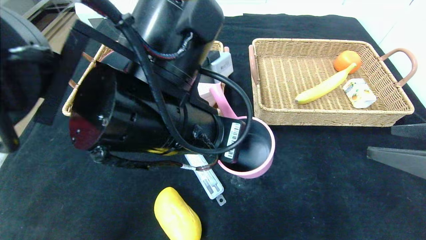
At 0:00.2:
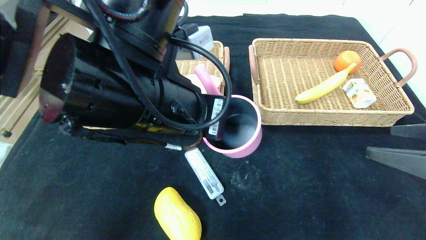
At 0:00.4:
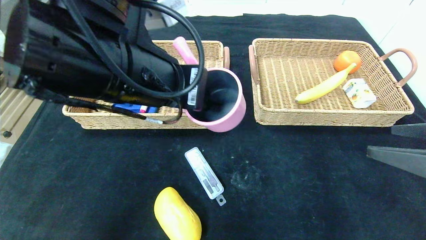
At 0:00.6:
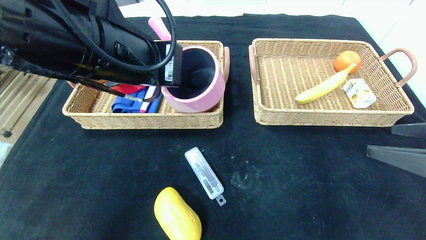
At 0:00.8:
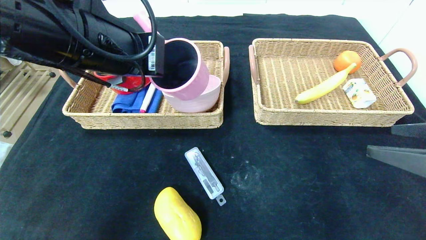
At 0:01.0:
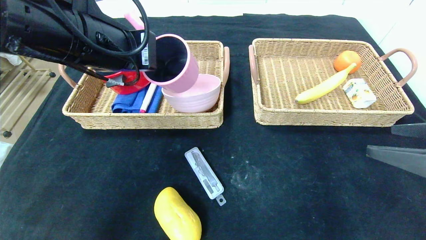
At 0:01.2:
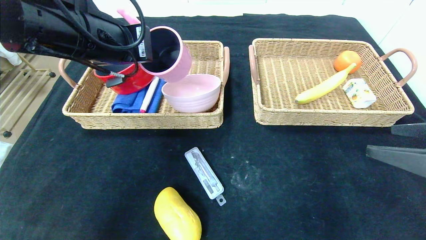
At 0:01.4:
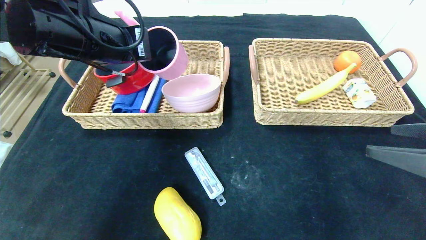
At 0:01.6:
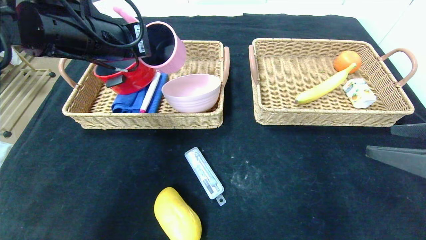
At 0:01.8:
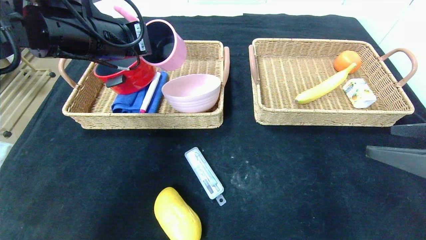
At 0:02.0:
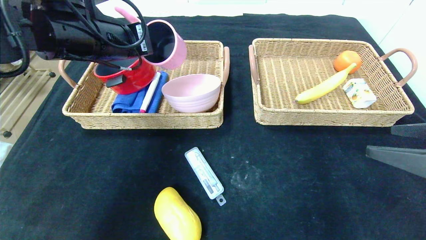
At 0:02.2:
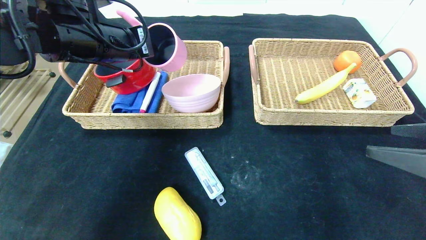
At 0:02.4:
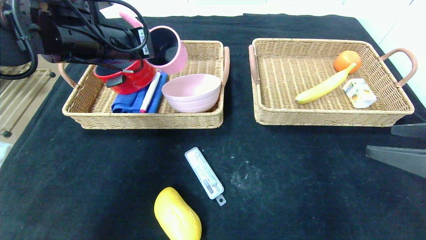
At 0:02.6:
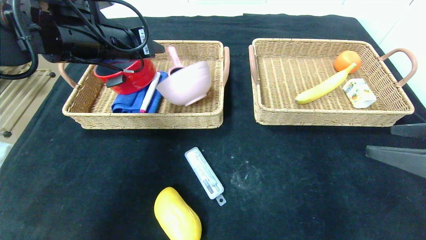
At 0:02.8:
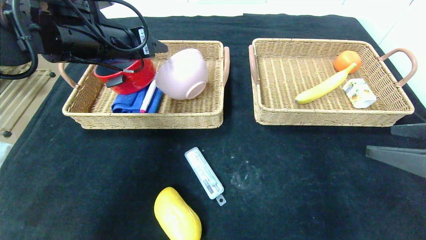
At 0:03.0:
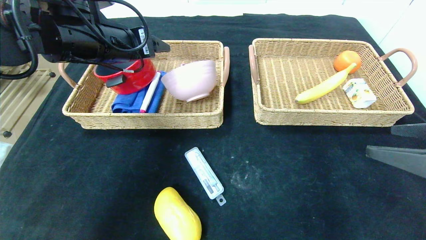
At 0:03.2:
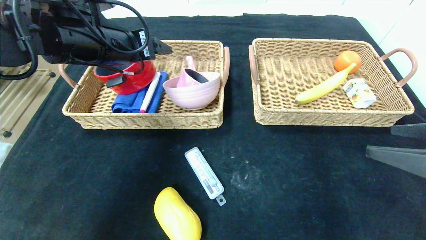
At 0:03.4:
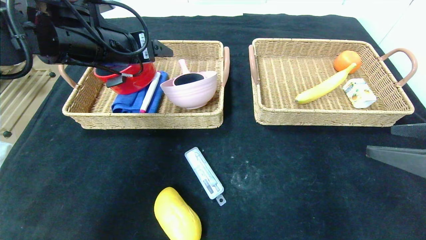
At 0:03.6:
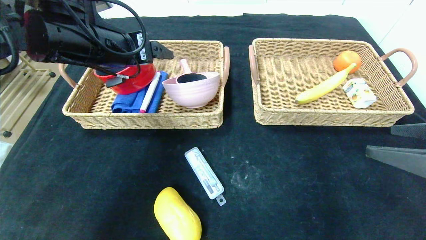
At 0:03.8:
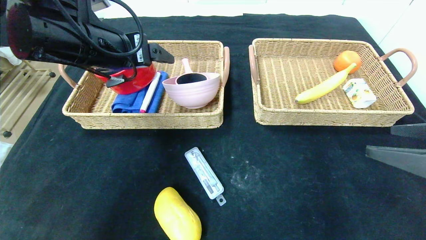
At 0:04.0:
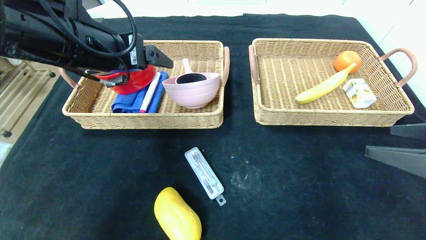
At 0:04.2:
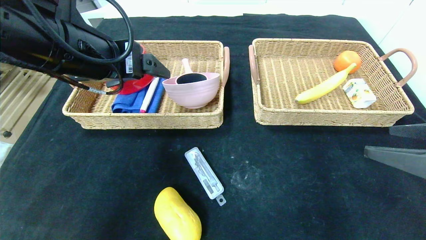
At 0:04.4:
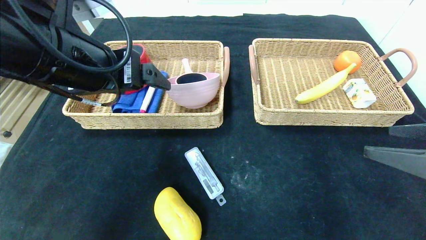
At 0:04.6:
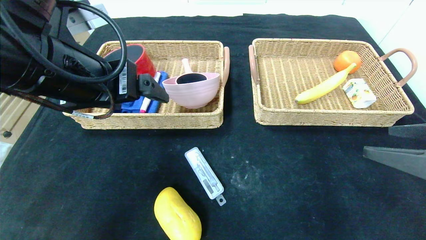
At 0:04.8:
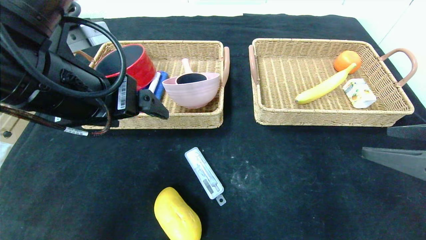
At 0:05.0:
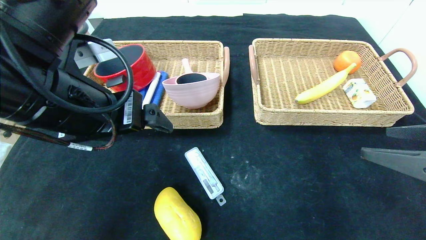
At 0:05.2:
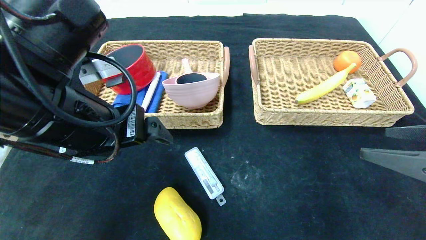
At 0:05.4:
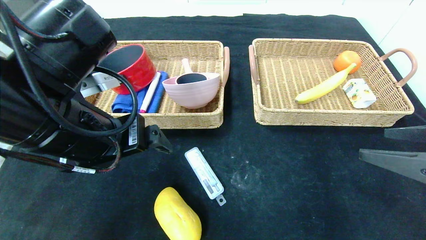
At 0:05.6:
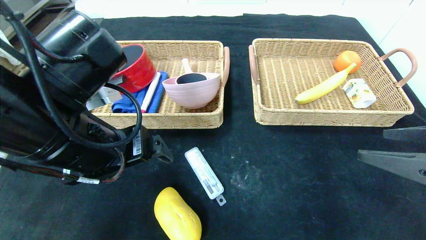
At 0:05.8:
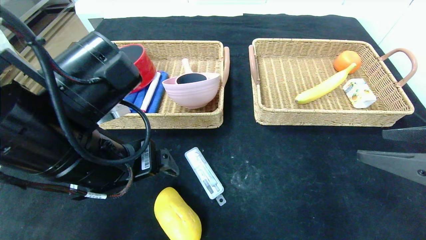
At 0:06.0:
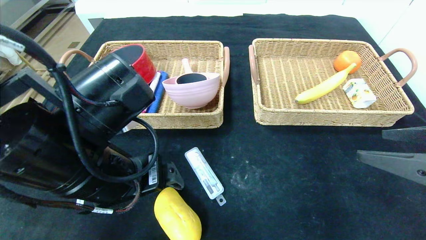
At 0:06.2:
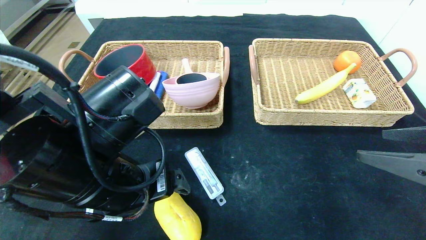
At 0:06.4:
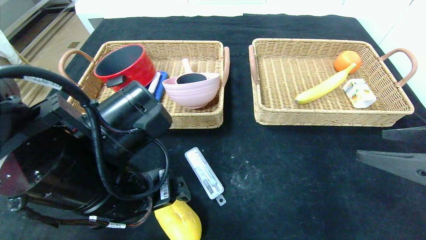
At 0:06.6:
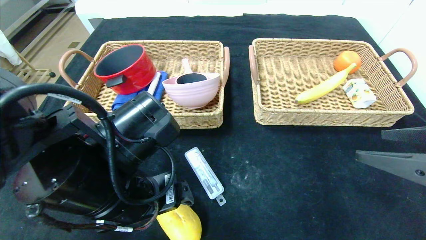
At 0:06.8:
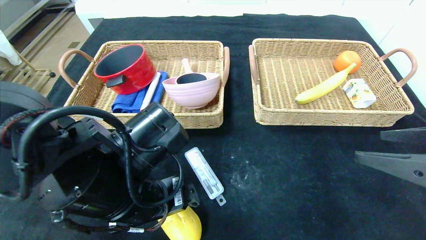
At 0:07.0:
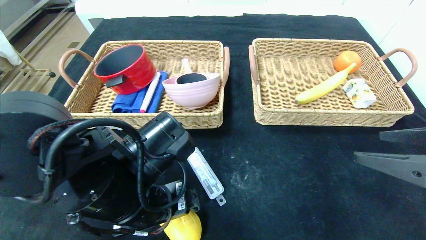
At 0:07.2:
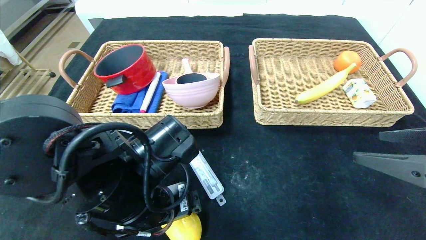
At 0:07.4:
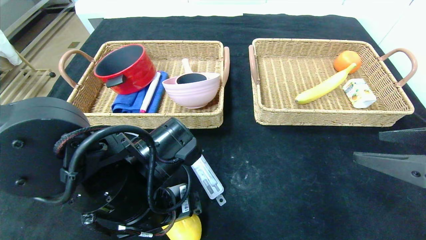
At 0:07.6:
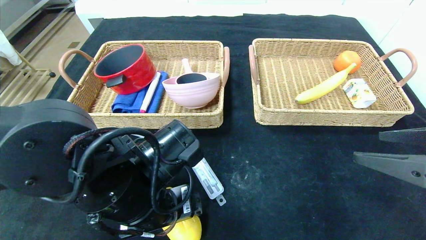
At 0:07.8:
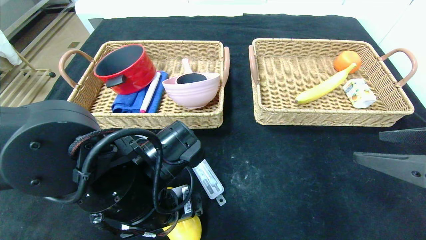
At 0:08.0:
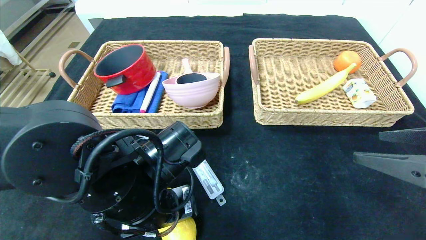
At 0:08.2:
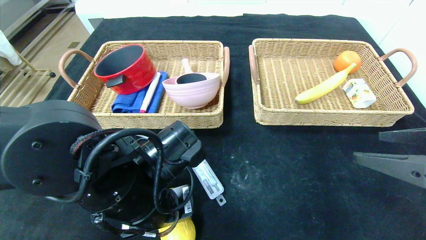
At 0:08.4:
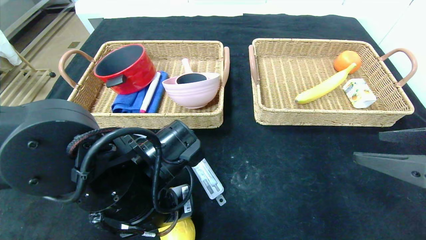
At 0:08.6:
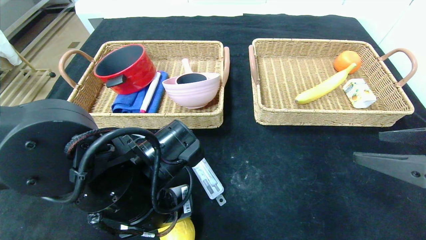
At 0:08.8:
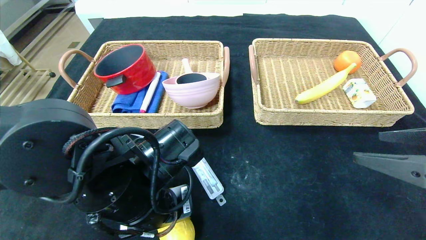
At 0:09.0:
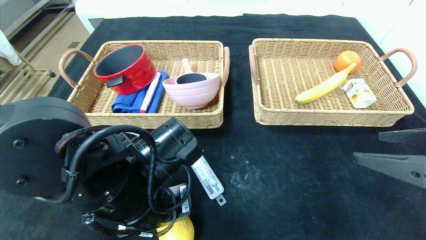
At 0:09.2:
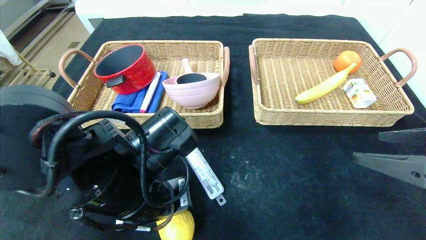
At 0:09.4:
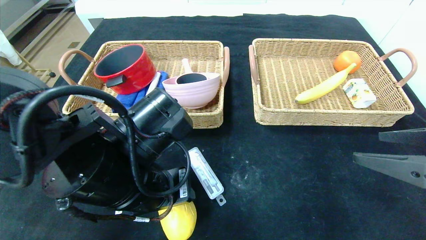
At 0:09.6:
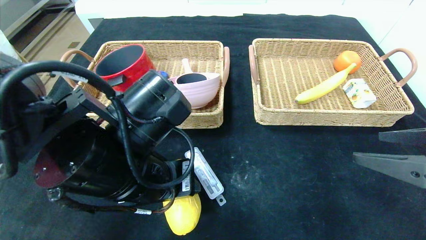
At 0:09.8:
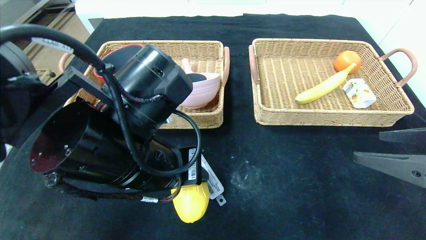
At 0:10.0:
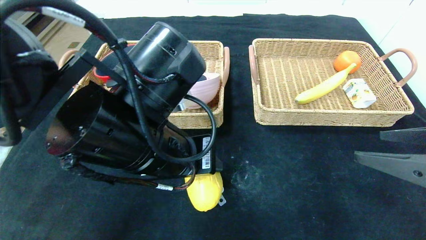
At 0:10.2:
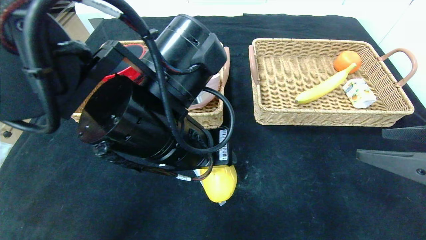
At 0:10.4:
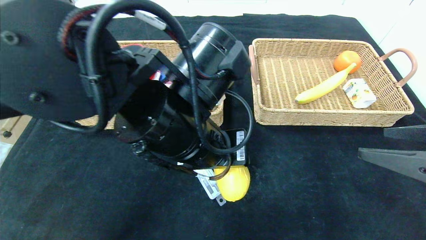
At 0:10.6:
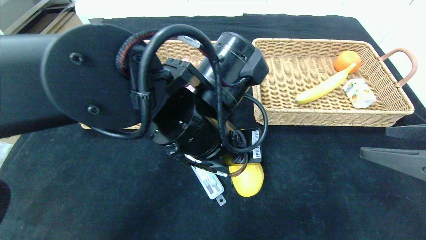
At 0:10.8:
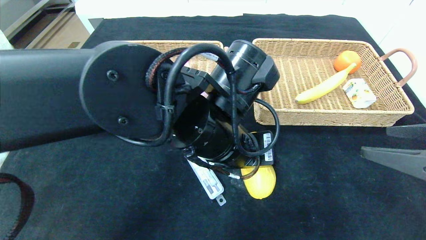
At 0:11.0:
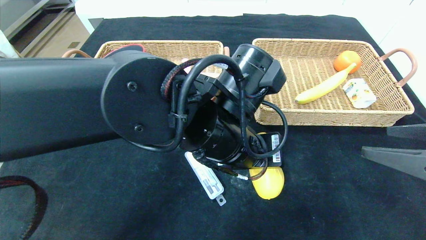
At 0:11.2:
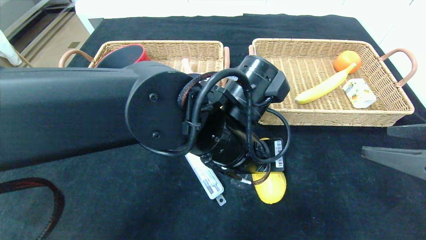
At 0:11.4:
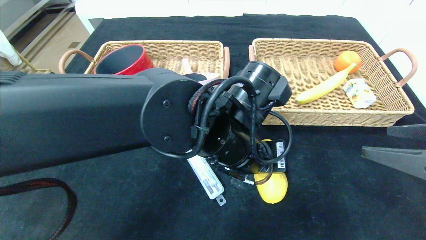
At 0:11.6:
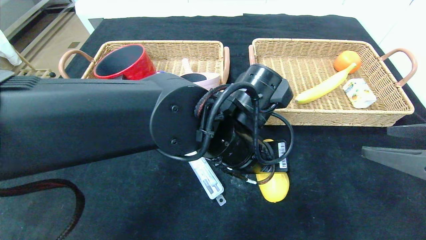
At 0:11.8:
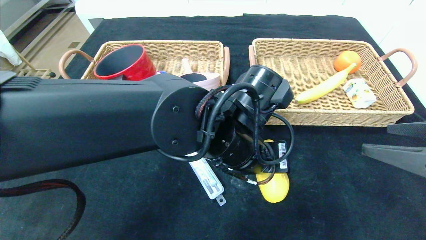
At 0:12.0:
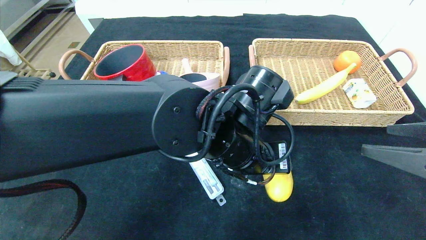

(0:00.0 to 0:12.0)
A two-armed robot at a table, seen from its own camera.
Step, 0:00.0 - 0:03.2: Grasp the pink pot and put it in the left basket.
0:00.0 - 0:01.6: The left gripper is displaced to the left, forward and upward by some 20 cm.
0:01.6 - 0:03.0: The left gripper opens up.
0:03.0 - 0:04.4: The left gripper goes some 10 cm backward.
0:04.4 - 0:06.0: The left gripper travels downward by roughly 10 cm.
0:06.0 - 0:07.6: The left gripper heads downward, covering some 5 cm.
0:07.6 - 0:09.0: The left gripper closes up.
0:09.0 - 0:10.4: The left gripper is displaced upward and to the right by roughly 10 cm.
0:10.4 - 0:12.0: The left gripper travels to the right by roughly 5 cm.

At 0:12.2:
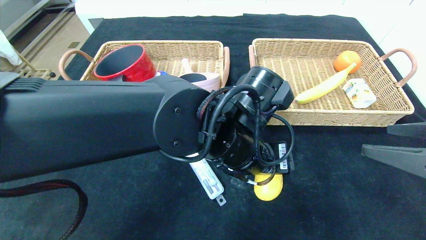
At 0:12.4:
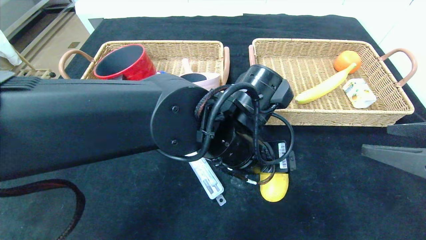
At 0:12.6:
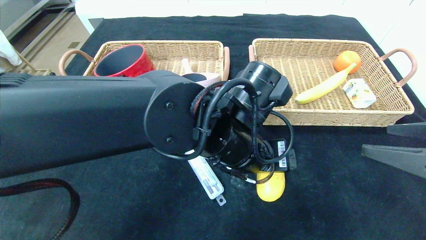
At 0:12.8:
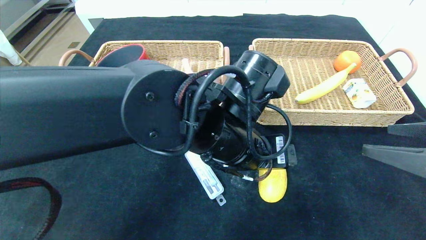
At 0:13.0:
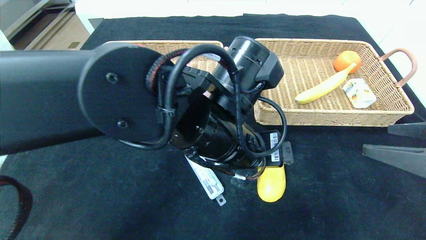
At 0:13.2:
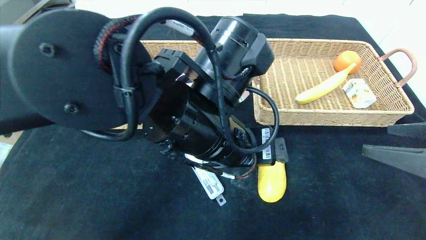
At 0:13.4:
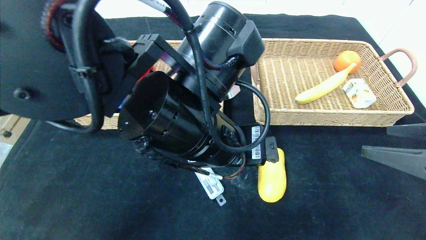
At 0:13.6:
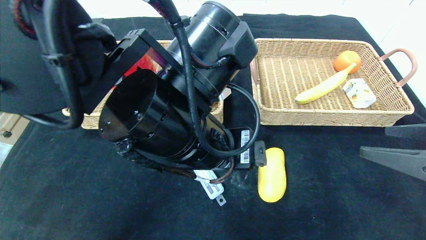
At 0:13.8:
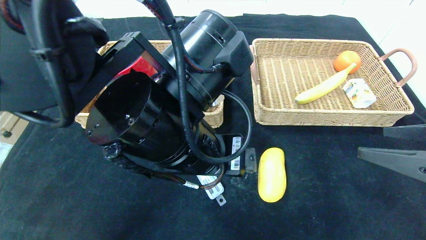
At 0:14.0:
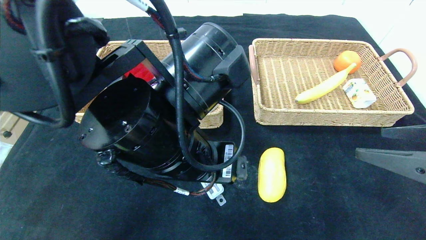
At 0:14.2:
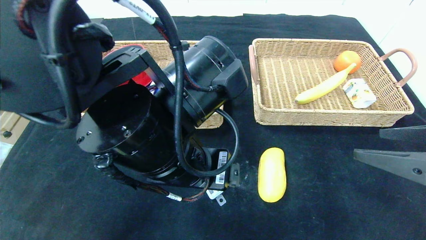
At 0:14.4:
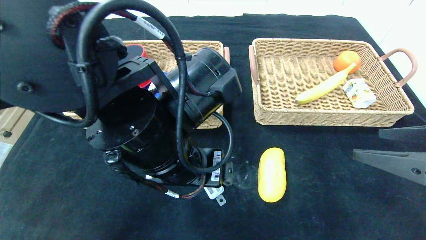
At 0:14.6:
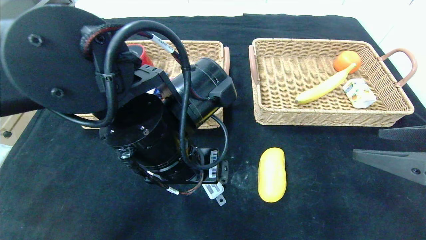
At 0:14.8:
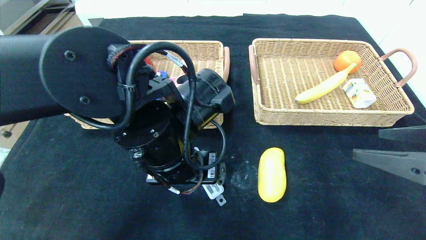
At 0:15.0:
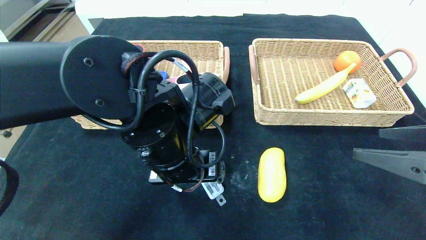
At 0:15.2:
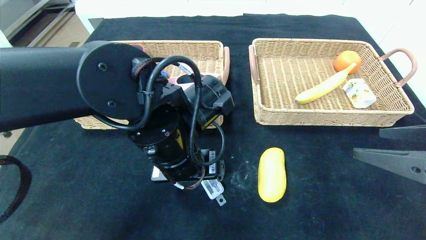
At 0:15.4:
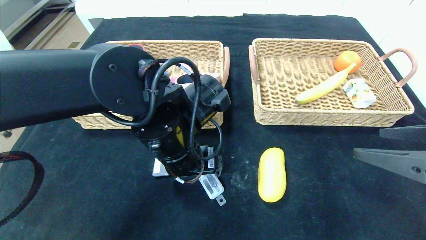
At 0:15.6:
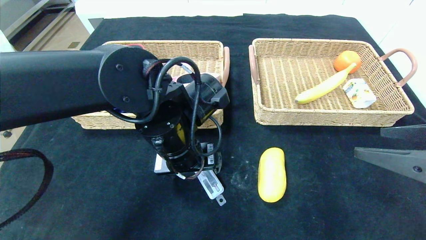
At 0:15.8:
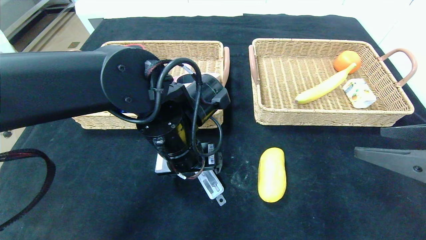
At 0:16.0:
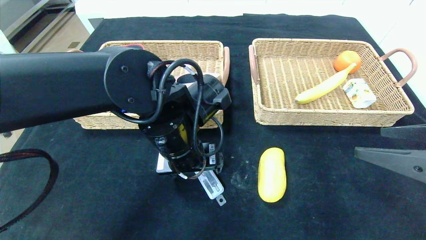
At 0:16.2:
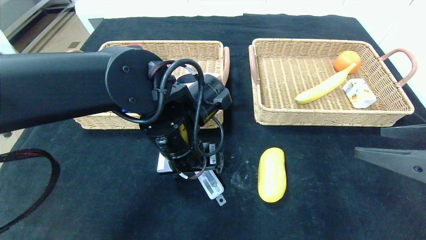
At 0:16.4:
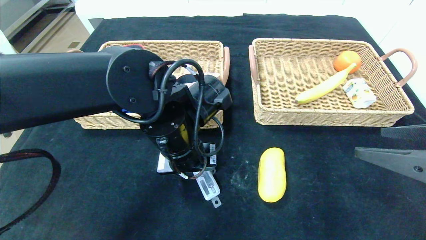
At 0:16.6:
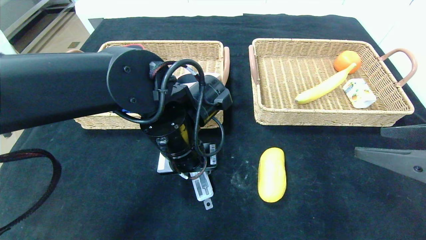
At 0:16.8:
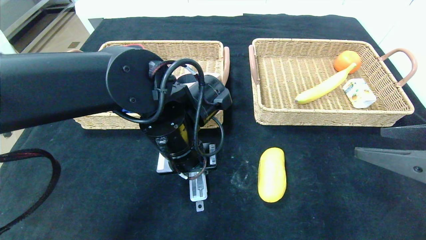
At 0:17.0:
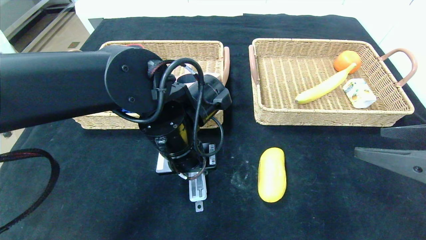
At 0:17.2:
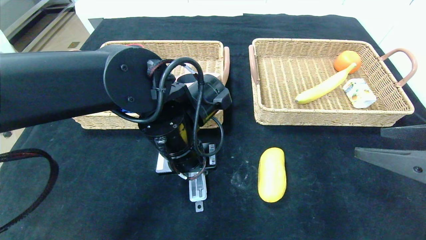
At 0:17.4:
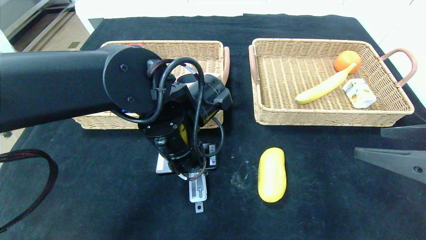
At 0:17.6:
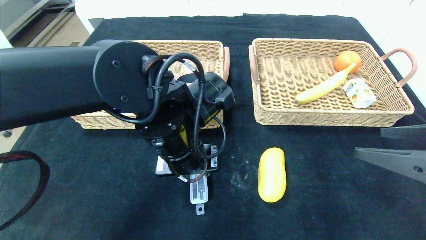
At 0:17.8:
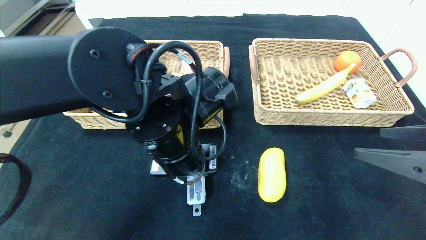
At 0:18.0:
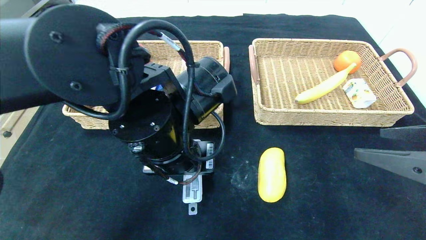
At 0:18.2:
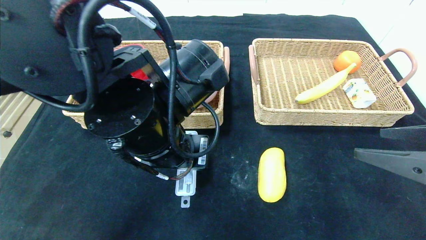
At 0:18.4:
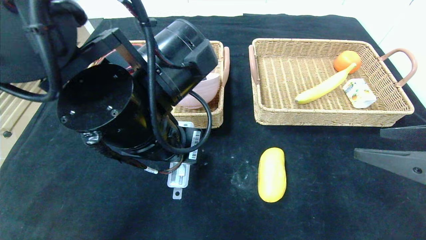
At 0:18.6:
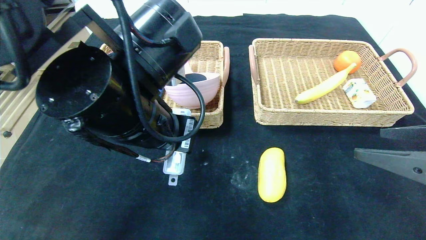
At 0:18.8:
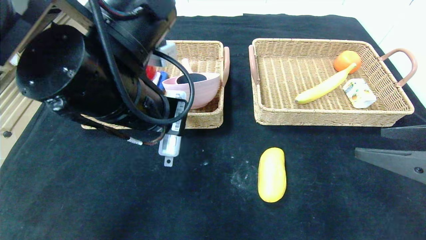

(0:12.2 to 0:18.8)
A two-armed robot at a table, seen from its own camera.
0:12.2 - 0:13.8: The left gripper moves to the left and upward, about 10 cm.
0:13.8 - 0:15.4: The left gripper shifts about 10 cm forward and downward.
0:15.4 - 0:17.2: The left gripper closes up.
0:17.2 - 0:18.8: The left gripper travels upward by roughly 10 cm.
